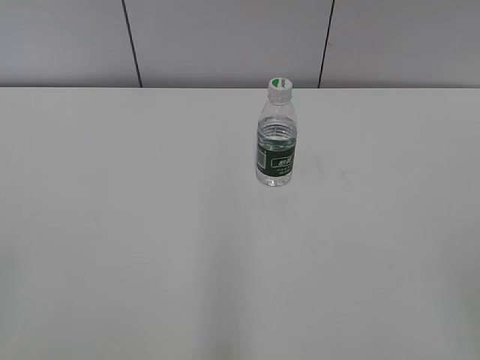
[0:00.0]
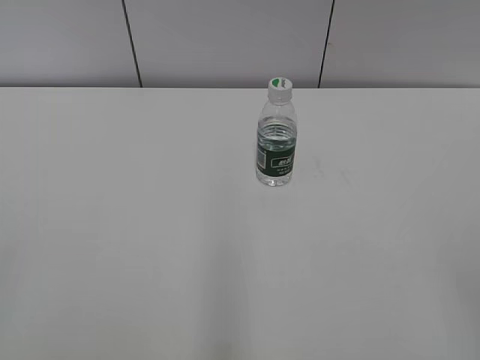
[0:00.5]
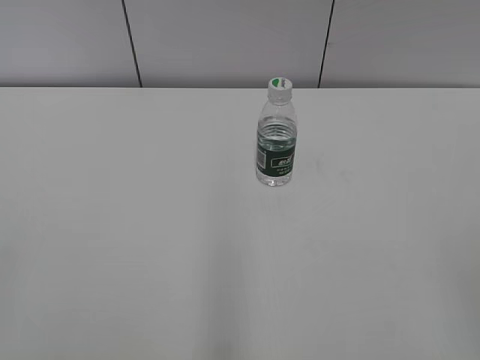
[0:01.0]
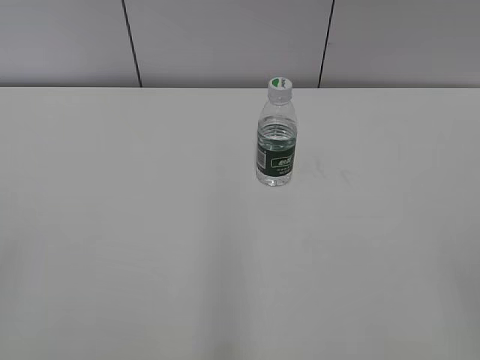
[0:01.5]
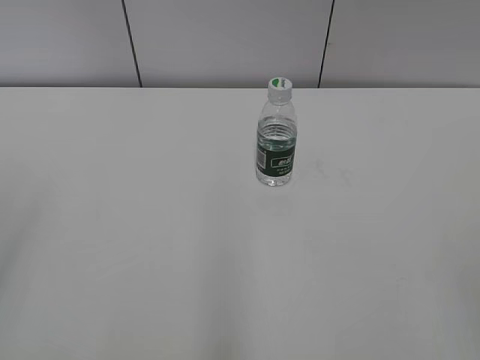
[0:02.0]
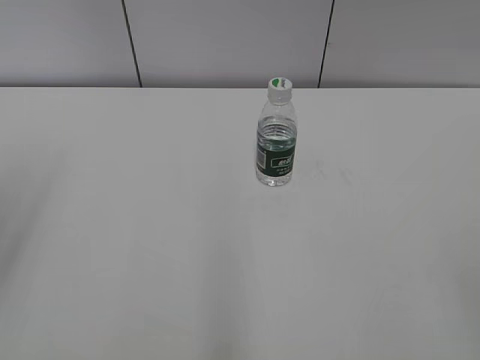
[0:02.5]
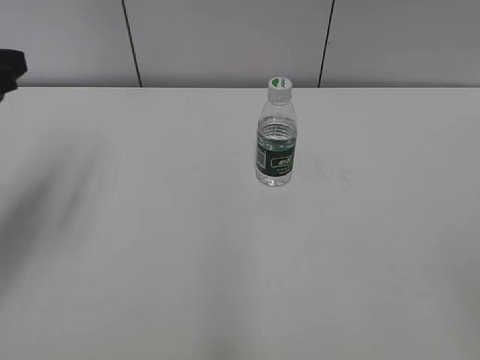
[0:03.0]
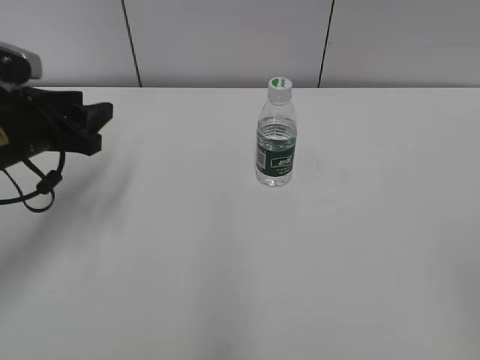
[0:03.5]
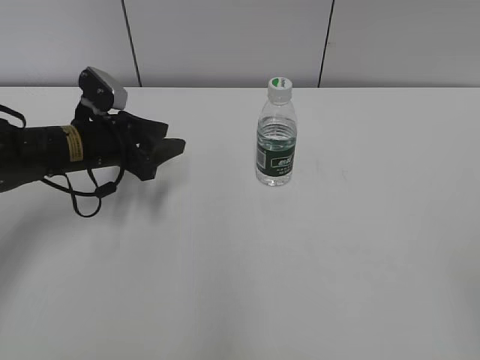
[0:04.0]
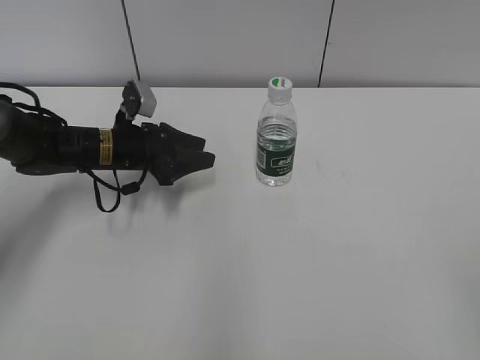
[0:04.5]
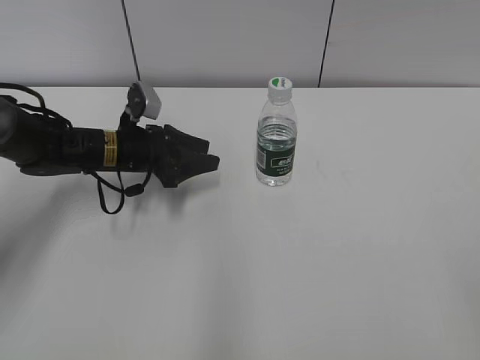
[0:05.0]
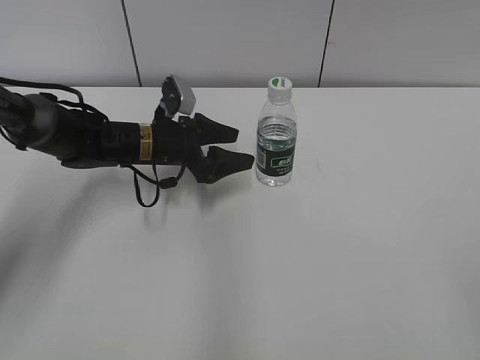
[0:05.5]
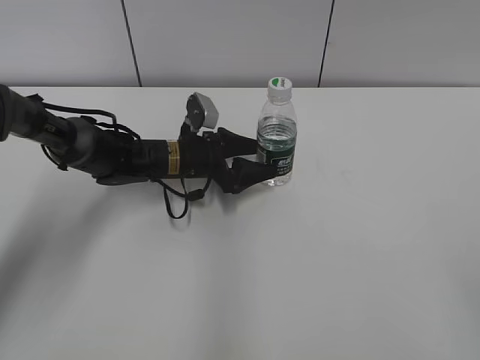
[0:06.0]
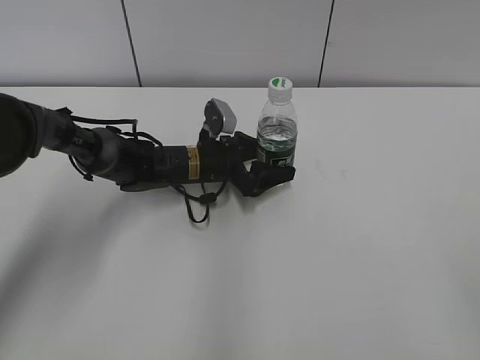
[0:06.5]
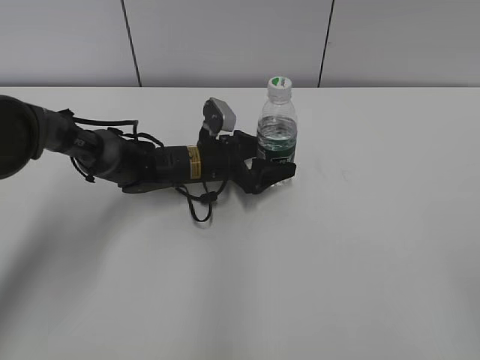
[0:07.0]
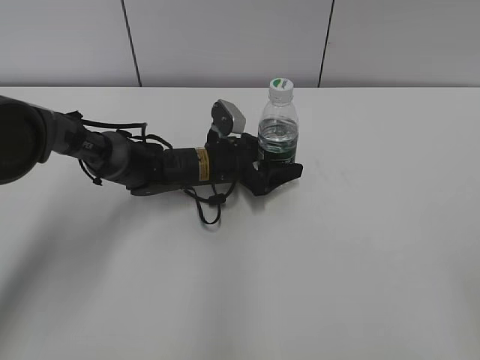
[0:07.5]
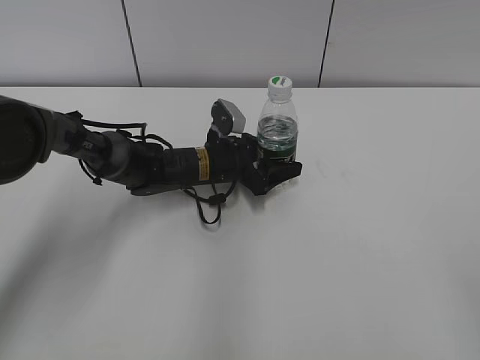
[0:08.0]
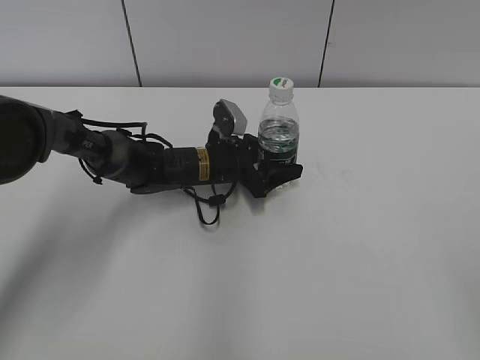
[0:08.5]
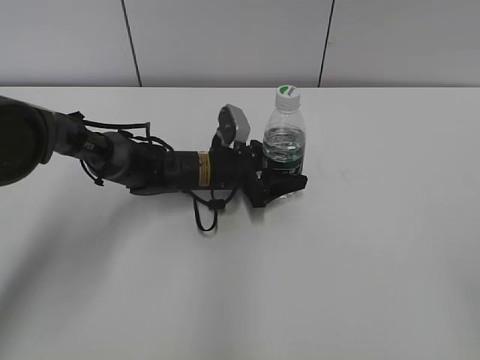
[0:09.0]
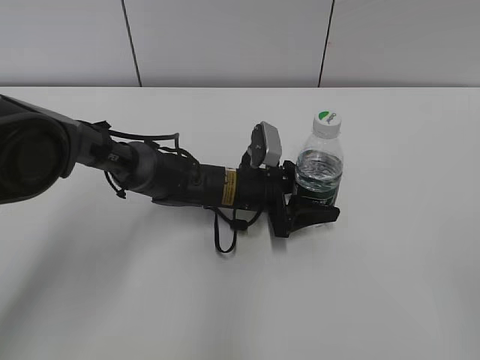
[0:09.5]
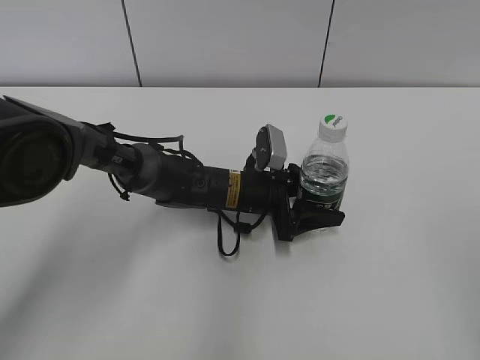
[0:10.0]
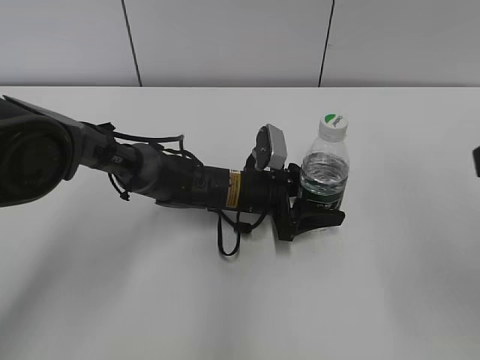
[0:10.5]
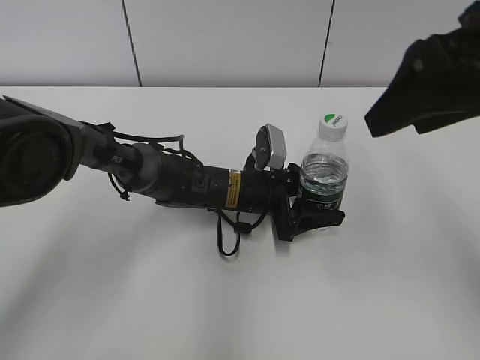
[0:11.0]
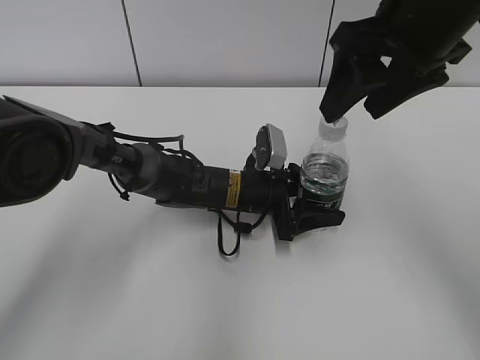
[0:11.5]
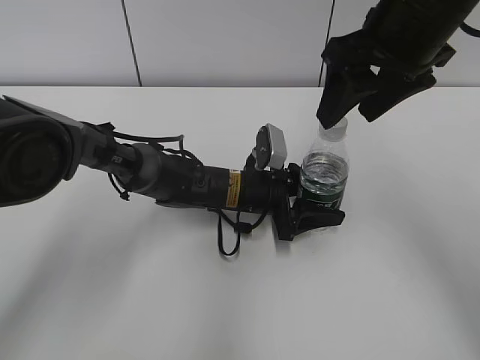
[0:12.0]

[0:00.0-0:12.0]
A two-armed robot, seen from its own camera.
Step, 0:00.0 to 0:07.0: Grab the C'estbon with the left hand.
Step, 0:07.5 to 0:10.0: Move the C'estbon to the right with the left hand.
0:02.0 to 0:04.0: The left gripper shifts approximately 35 cm forward, downward and to the right.
0:04.0 to 0:06.0: The left gripper shifts some 15 cm to the right, downward and forward, and opens its fingers.
0:06.0 to 0:08.0: The left gripper closes its fingers.
0:08.0 to 0:10.0: The left gripper goes about 5 cm backward.
0:10.0 to 0:12.0: The right gripper moves forward and to the left, some 35 cm.

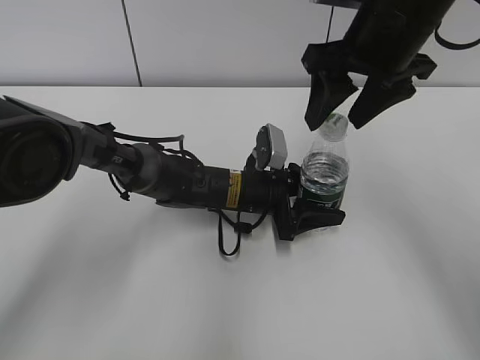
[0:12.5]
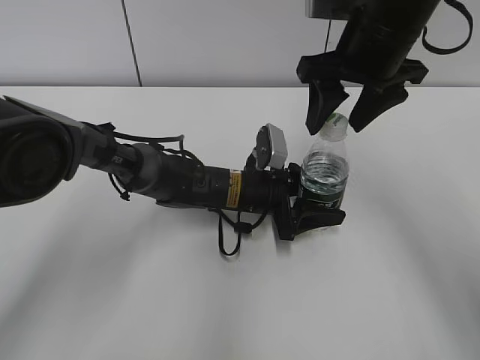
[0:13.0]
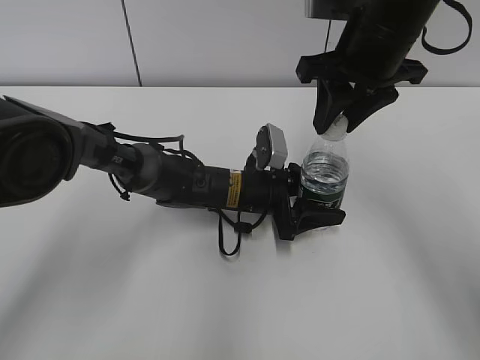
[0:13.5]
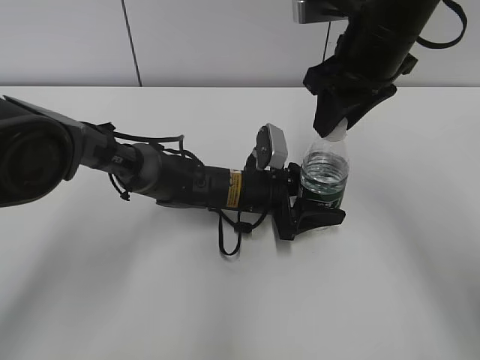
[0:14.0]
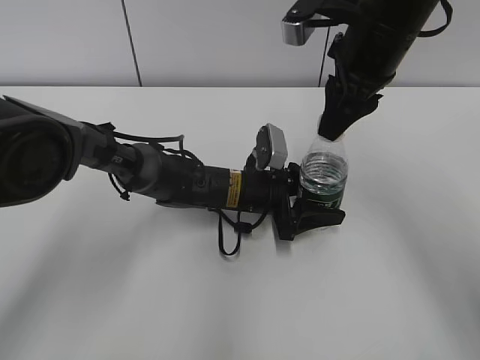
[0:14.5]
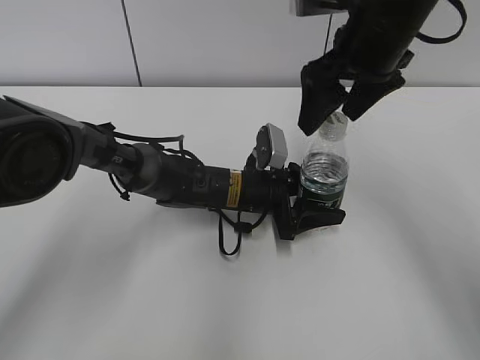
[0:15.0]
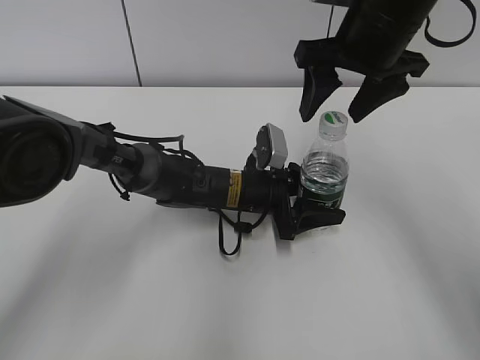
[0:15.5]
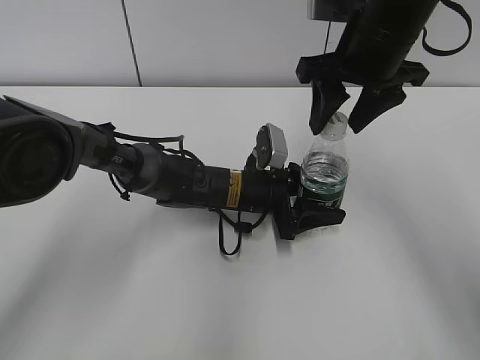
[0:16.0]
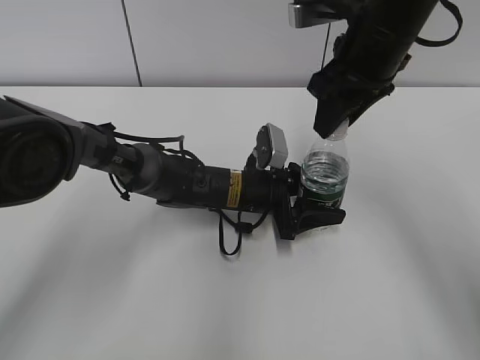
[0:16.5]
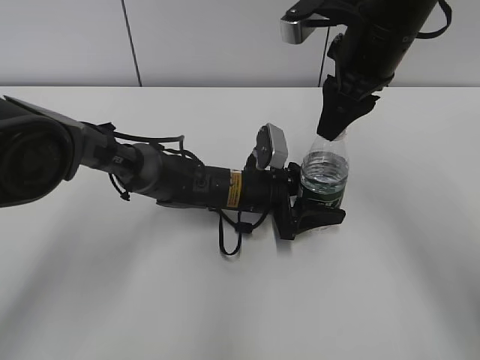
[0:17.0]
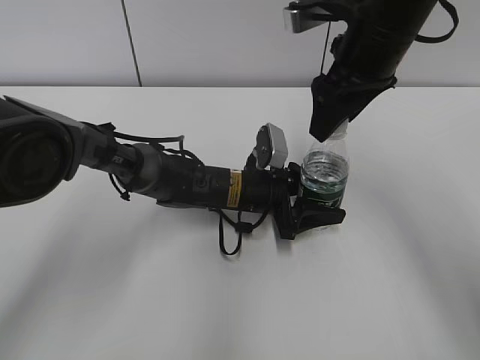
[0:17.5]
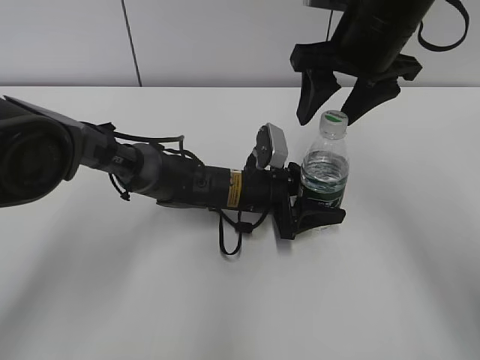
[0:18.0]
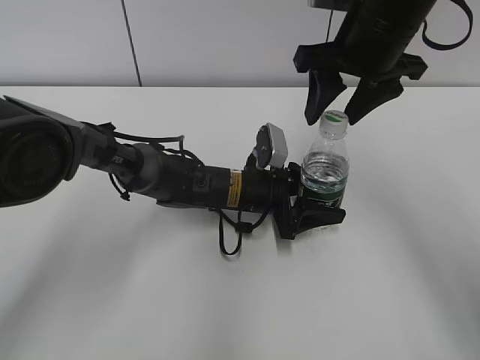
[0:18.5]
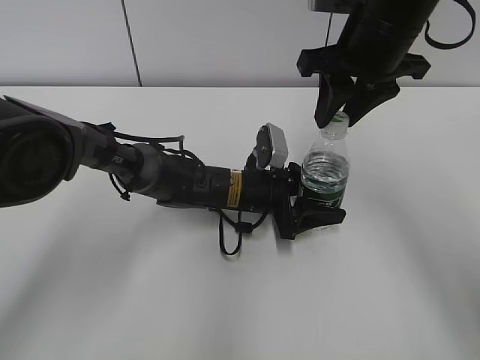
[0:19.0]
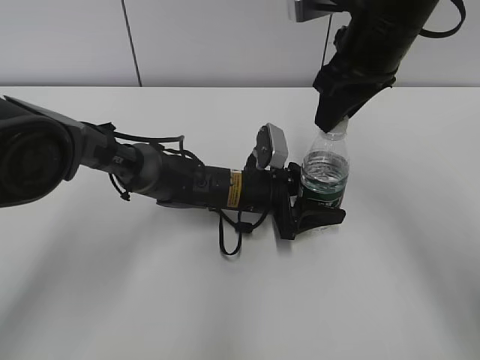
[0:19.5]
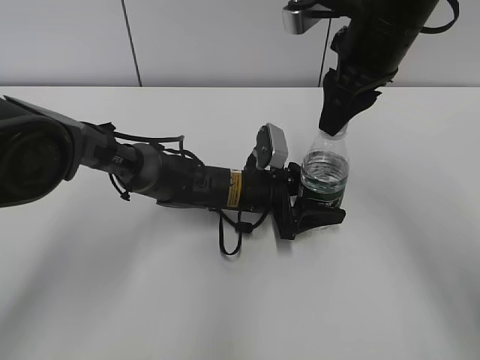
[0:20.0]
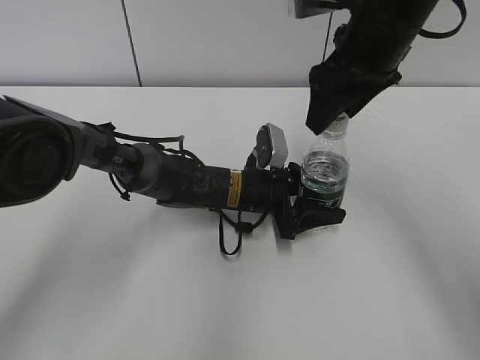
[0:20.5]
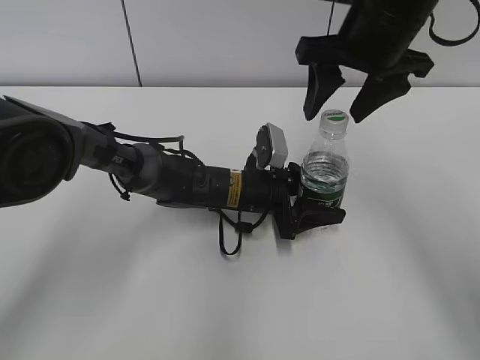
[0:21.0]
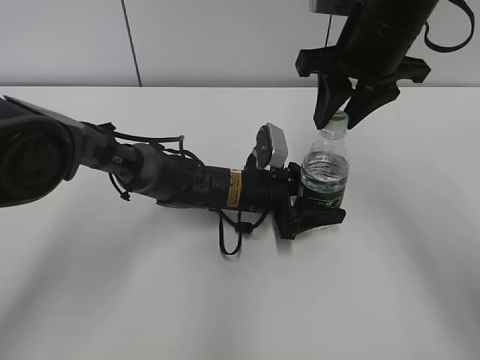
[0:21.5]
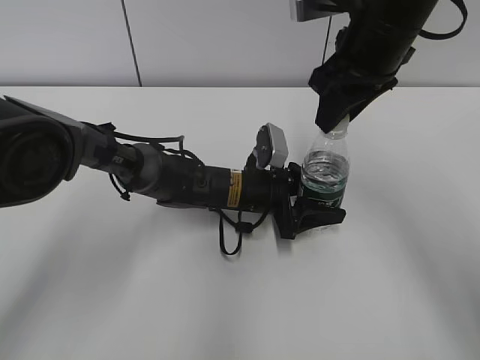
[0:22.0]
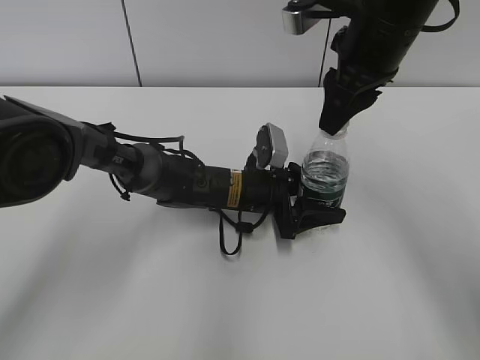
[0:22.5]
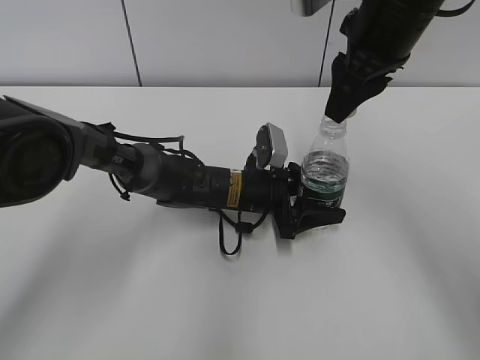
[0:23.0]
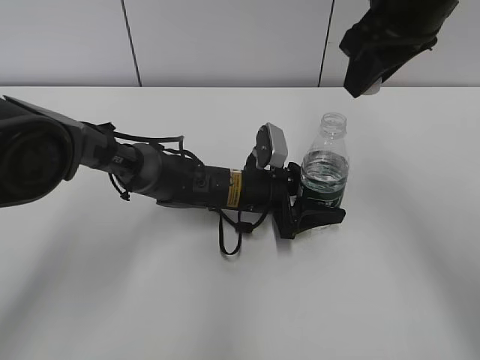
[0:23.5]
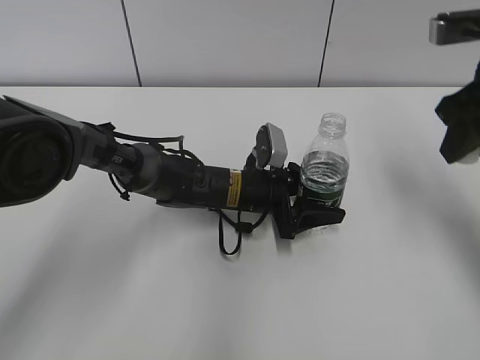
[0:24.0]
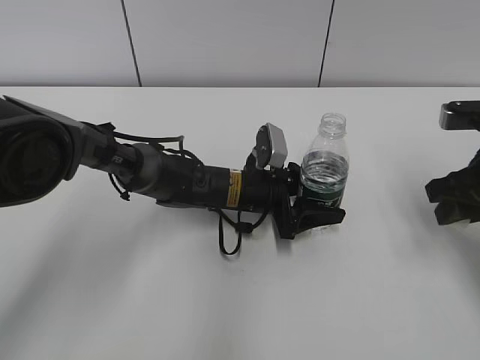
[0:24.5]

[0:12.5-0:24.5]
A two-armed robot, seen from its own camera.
Step, 0:12.5 to 0:23.0: Twist the bottle cap with the right hand.
0:12.5 to 0:14.5: The right gripper closes up.
0:14.5 to 0:16.5: The right gripper opens and closes again.
0:16.5 to 0:18.5: The right gripper opens up.
0:18.5 to 0:20.5: The right gripper closes, then opens again.
0:20.5 to 0:22.5: The right gripper closes its fingers.
0:22.5 to 0:24.5: The right gripper is displaced to the right, downward and backward by approximately 20 cm.

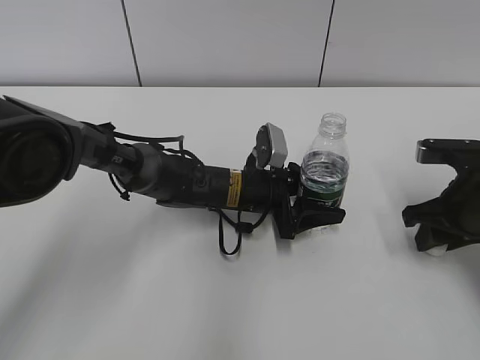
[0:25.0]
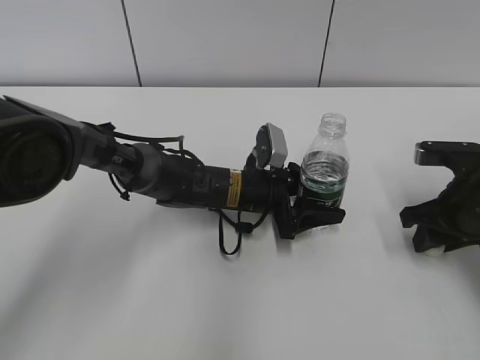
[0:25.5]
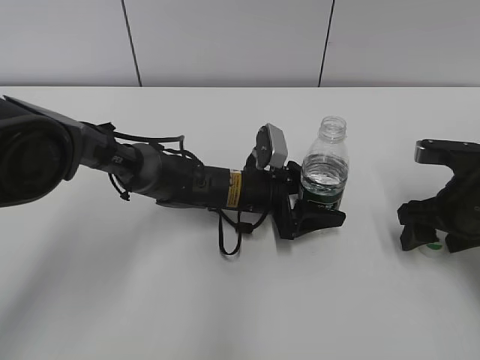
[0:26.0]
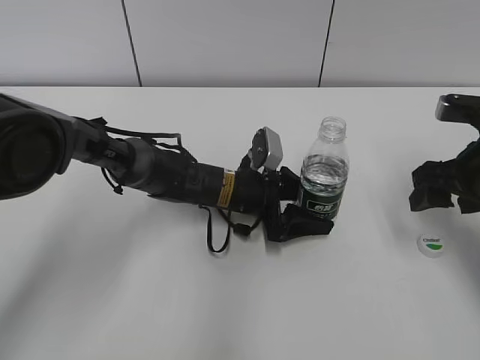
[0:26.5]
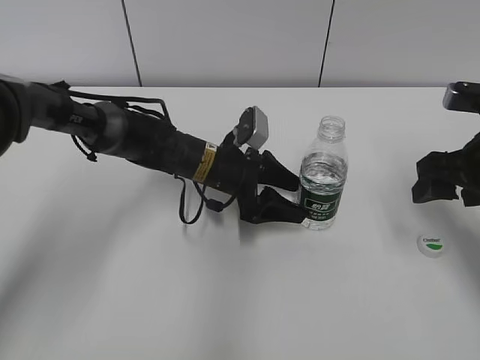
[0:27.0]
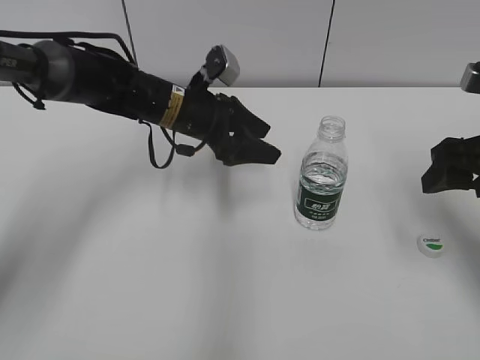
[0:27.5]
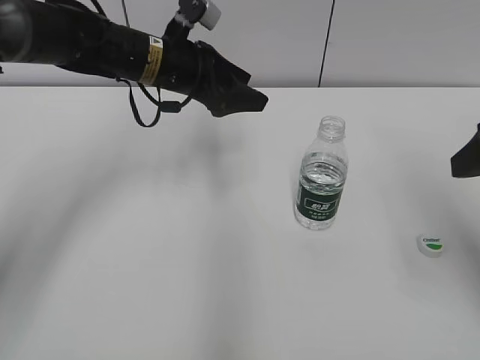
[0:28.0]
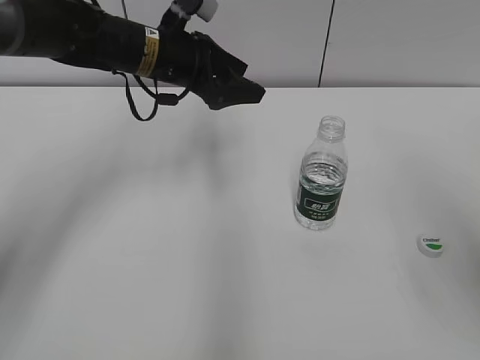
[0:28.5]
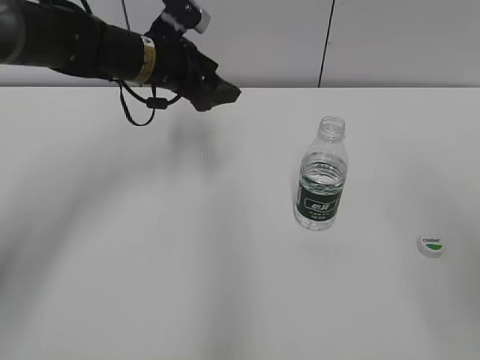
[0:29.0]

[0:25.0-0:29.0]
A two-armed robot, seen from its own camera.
Step, 0:26.5 to 0:27.0: Place the C'estbon with the left hand.
0:25.0 to 0:27.0: The left gripper ends up some 5 cm from where it was, and opens; the right gripper heads upward, covering roughly 5 cm, and opens up.
0:27.0 to 0:29.0: The left gripper is displaced upward, to the left and forward by about 15 cm. Meanwhile the right gripper goes some 20 cm backward and upward.
